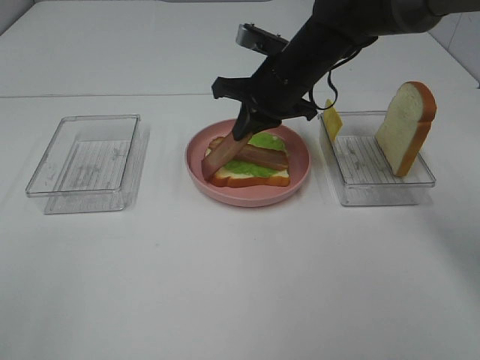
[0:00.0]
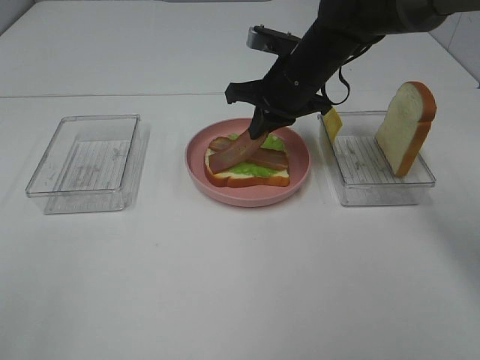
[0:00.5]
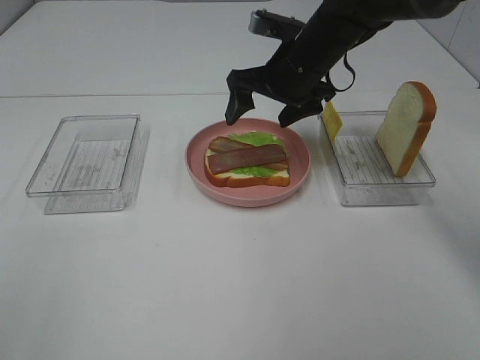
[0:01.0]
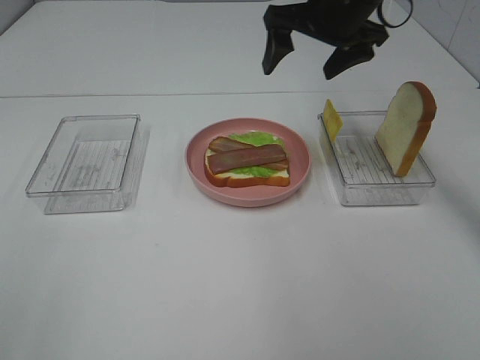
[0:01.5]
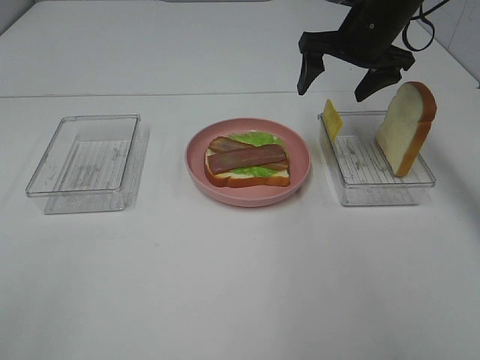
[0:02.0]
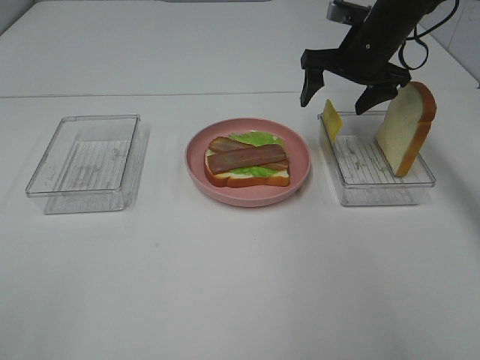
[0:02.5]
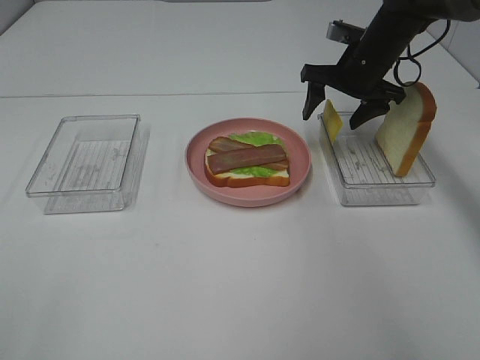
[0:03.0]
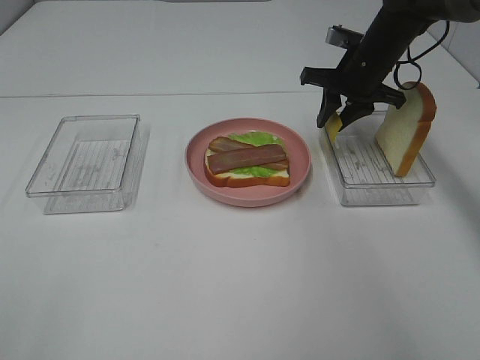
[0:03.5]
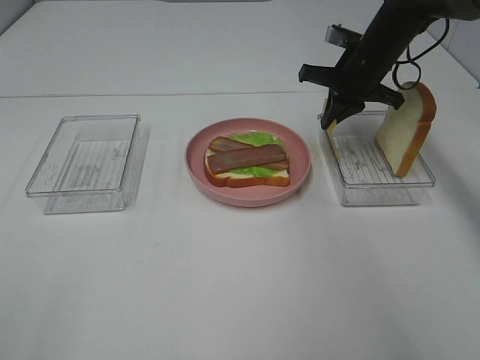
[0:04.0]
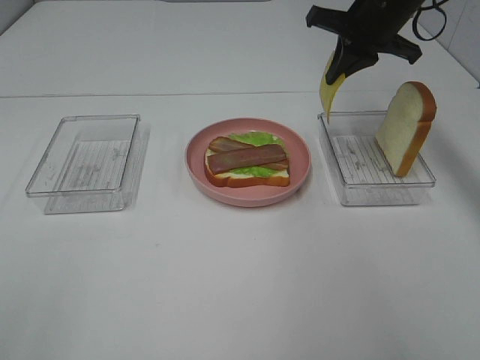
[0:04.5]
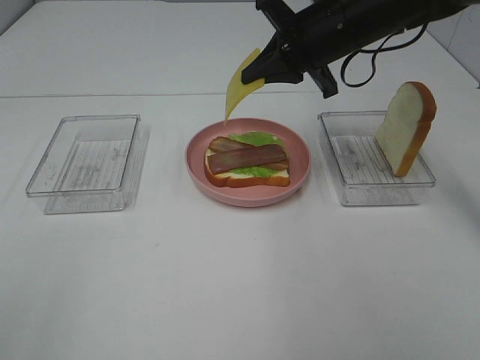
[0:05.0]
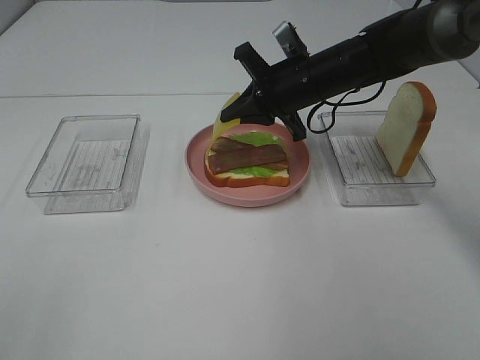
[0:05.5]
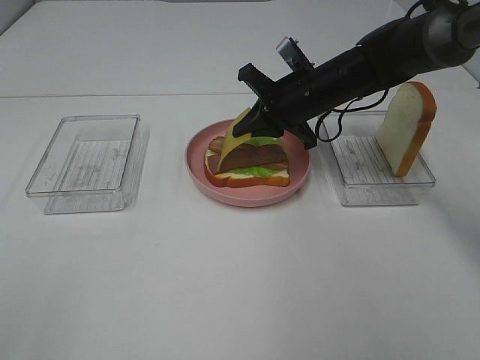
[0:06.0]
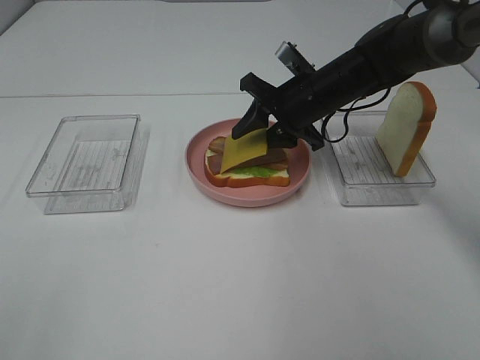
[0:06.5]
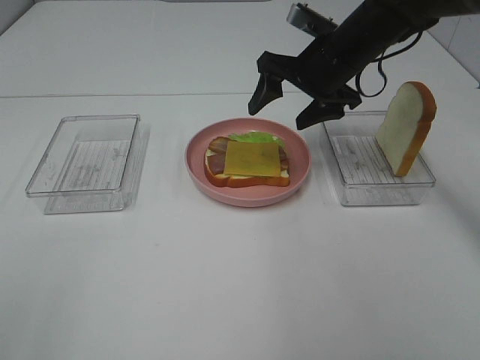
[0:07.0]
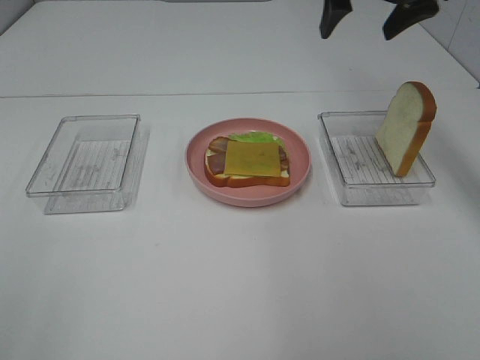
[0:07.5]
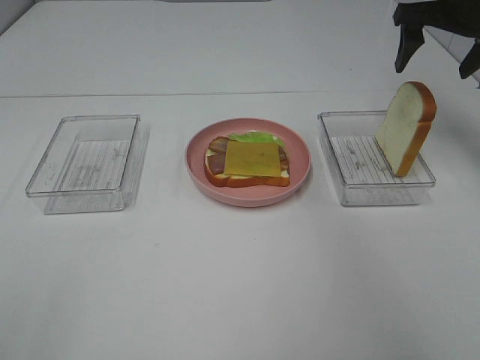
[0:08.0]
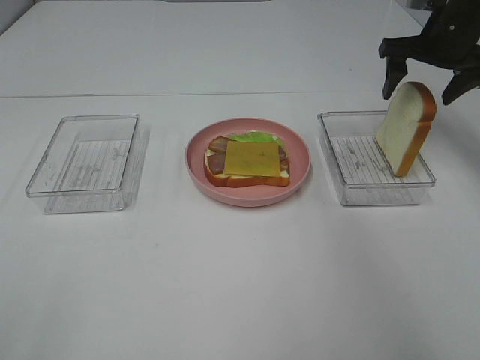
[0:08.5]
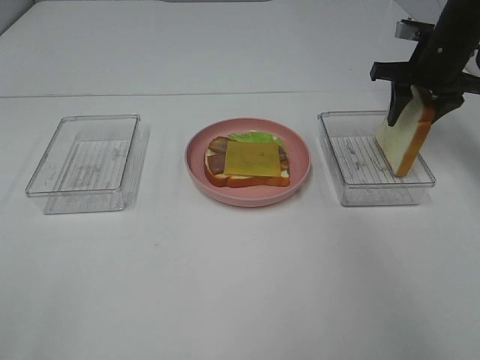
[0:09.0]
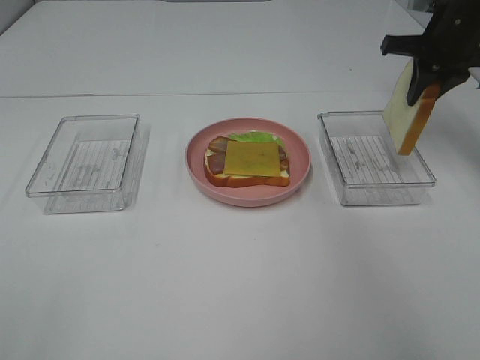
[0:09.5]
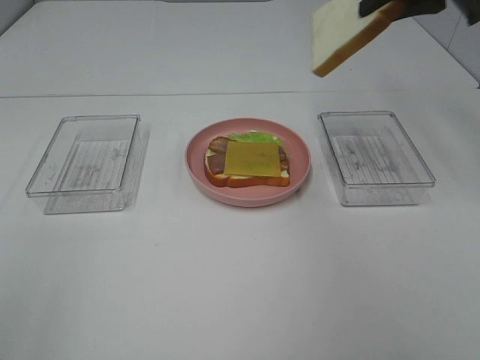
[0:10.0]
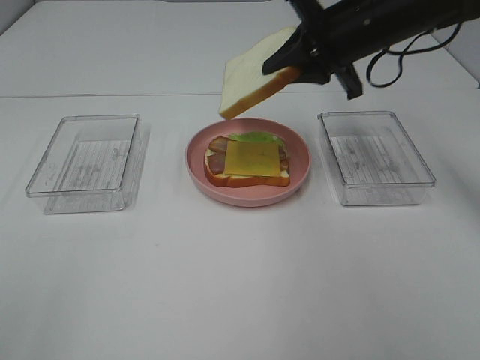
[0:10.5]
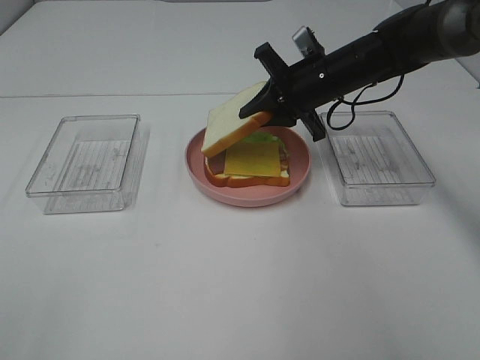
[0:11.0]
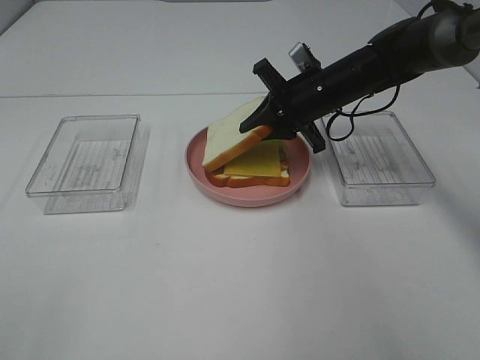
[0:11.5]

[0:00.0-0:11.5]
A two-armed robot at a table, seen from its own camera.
Task of the whole recording: Make sandwiches.
Step, 0:01.5 to 0:04.0: Right hand:grab the cheese slice.
Step, 0:04.5 to 0:06.5: Right hand:place the cheese slice on top of the bacon.
Step, 0:07.0 to 0:09.0: Right hand:grab the bread slice.
0:00.0 to 0:02.0: The right gripper is displaced to the right and upward by approximately 10 cm, and opens its fingers.
0:02.0 to 0:04.0: The right gripper goes some 5 cm downward, and closes.
0:04.0 to 0:06.0: The right gripper heads to the left and backward, covering approximately 10 cm, and reaches about 10 cm upward, then returns.
0:06.0 to 0:07.5: The right gripper heads upward and to the right, covering approximately 20 cm, and opens.
0:07.5 to 0:09.5: The right gripper heads to the right and downward, covering roughly 10 cm, and closes up.
0:09.5 to 0:11.5: The right gripper moves to the left and downward, approximately 20 cm.

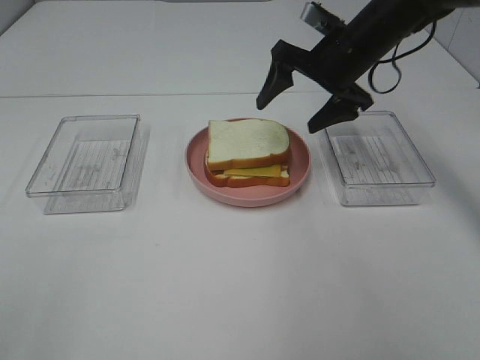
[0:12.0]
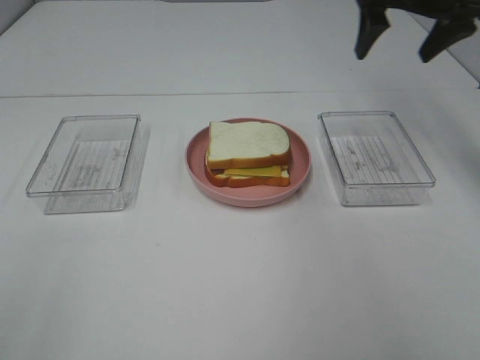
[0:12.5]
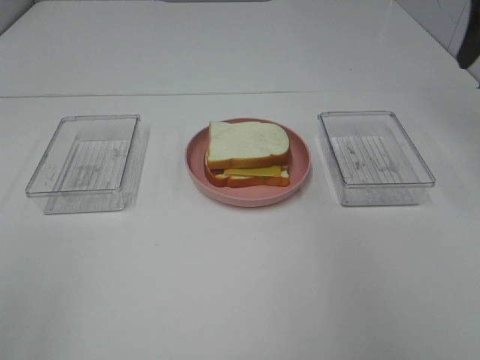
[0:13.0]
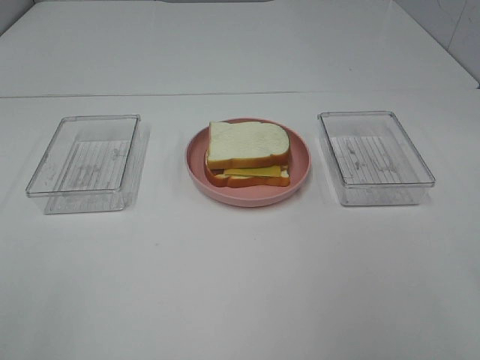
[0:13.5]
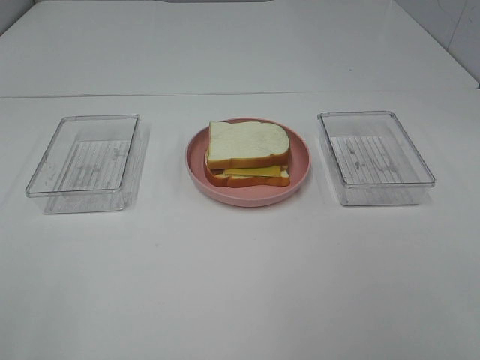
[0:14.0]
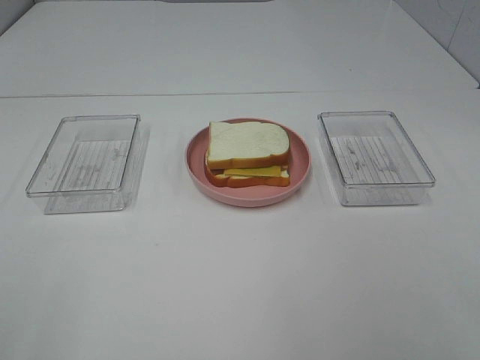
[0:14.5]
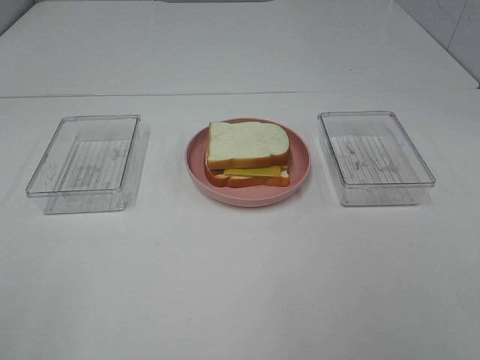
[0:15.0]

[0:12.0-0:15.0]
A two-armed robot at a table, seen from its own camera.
Task of the whole recording: Make sandwiches.
0:12.0 to 0:13.5: The right gripper moves backward, about 35 cm.

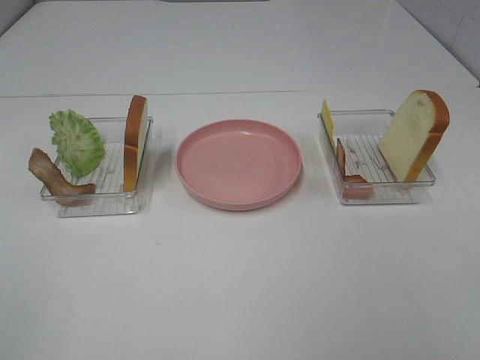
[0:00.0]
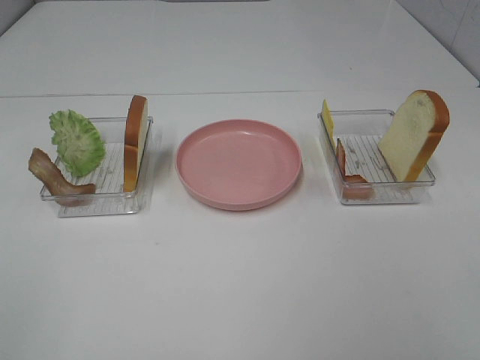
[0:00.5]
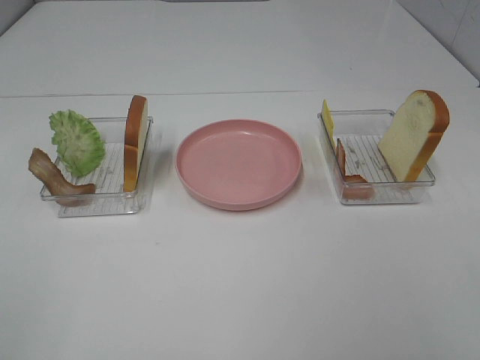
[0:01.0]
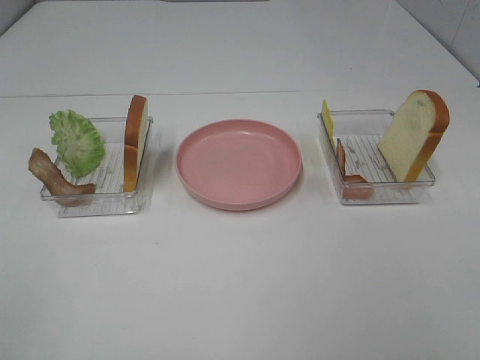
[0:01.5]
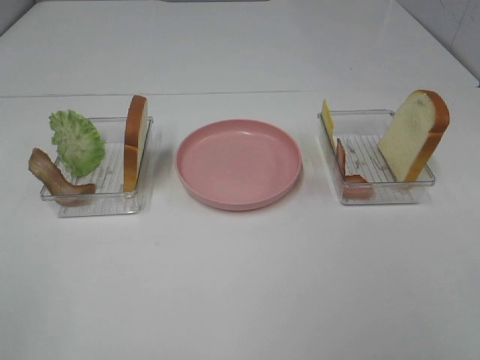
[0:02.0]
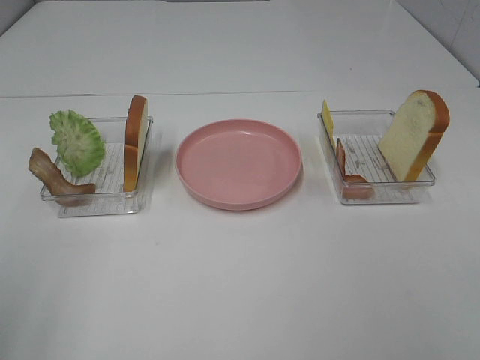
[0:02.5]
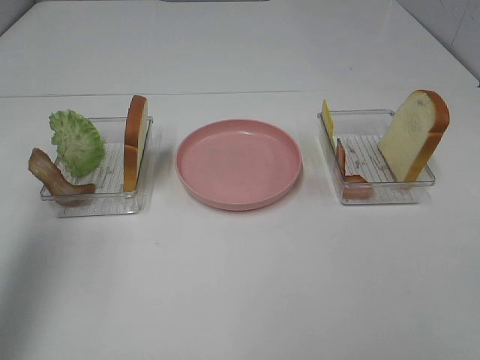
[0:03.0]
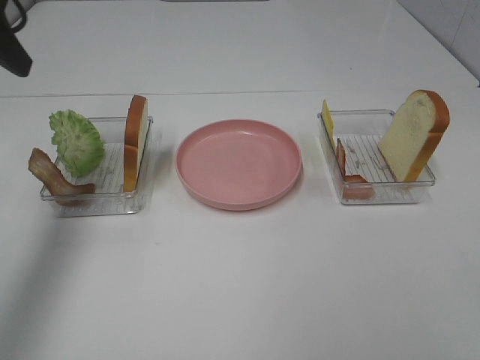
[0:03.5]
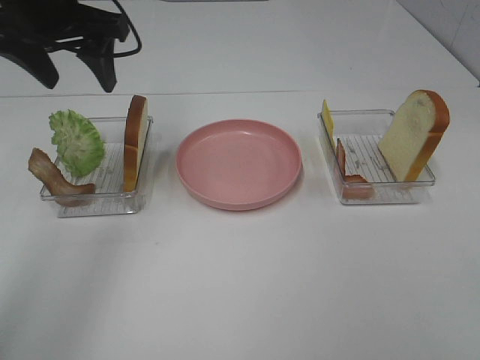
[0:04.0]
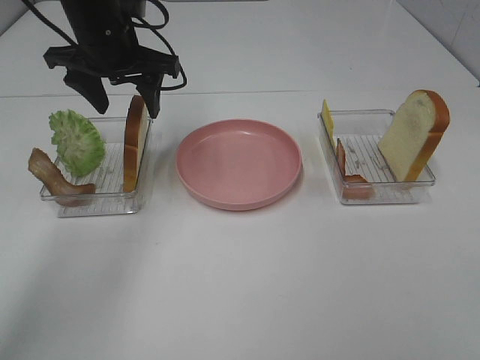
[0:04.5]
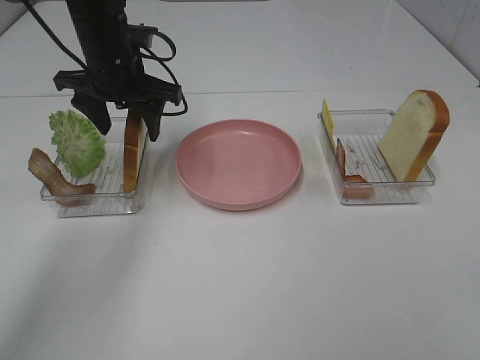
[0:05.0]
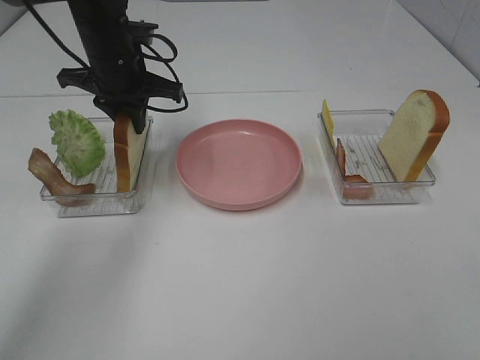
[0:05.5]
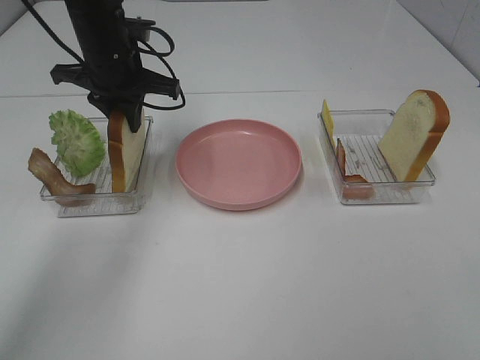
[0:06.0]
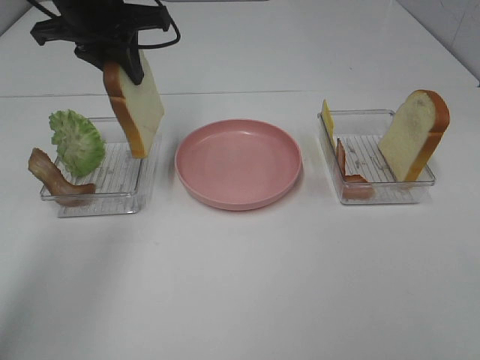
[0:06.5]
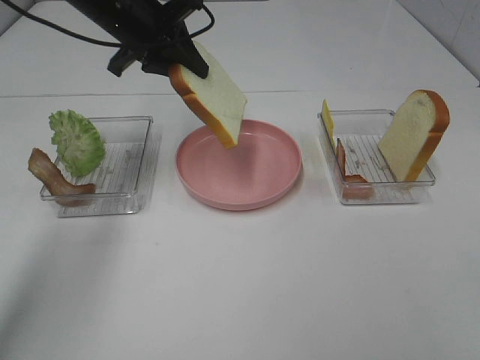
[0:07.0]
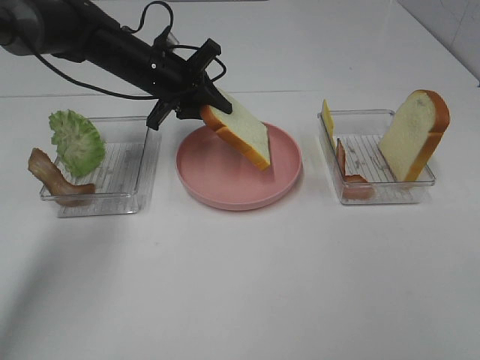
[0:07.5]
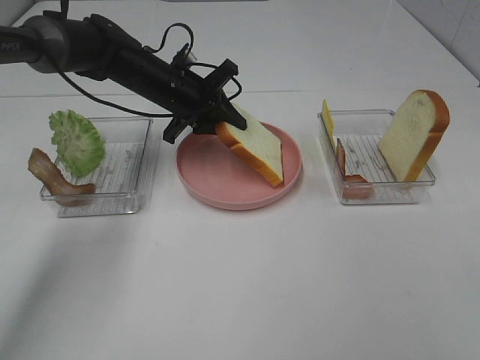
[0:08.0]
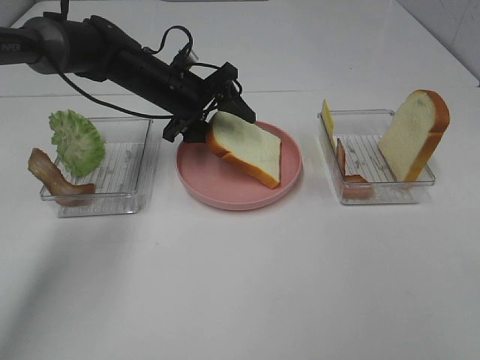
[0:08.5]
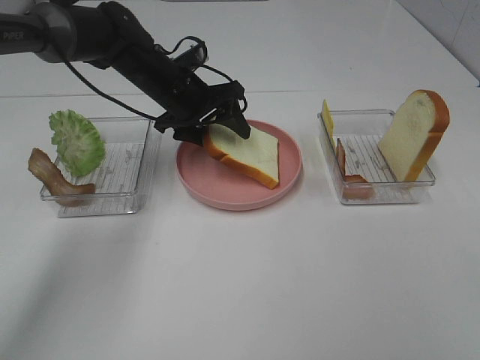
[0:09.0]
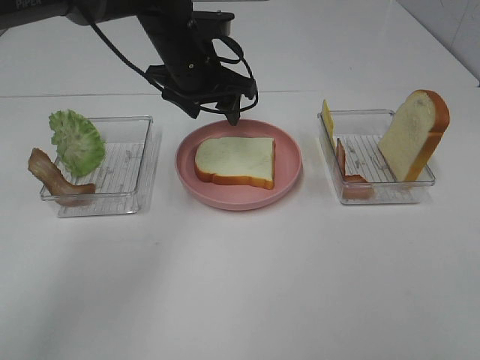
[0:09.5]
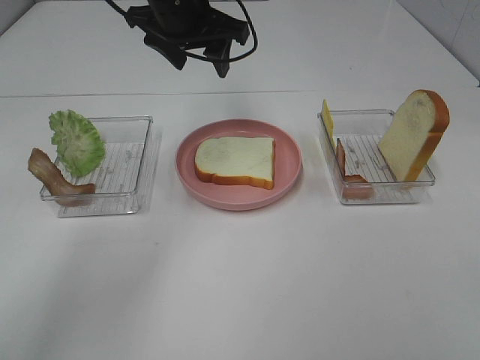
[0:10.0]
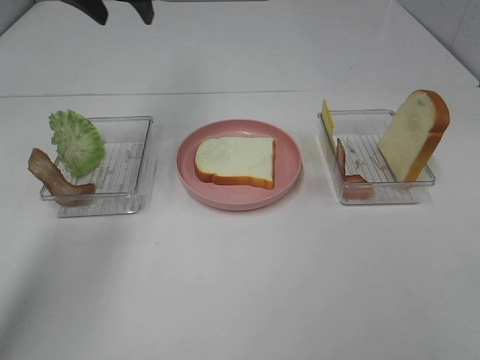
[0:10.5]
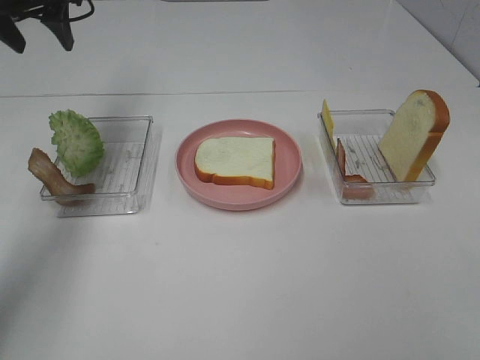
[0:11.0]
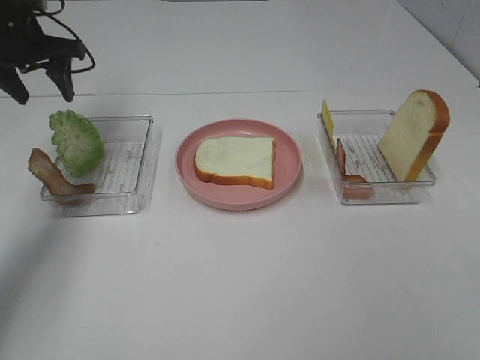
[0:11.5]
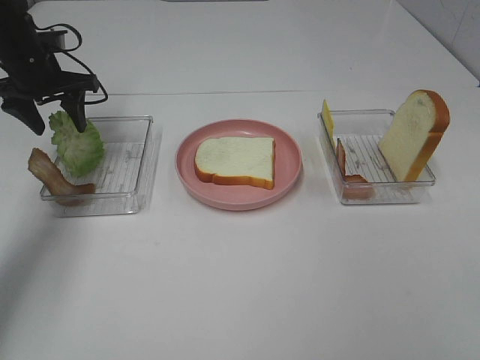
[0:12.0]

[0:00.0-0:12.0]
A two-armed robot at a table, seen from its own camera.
Task of the whole recording: Make sandwiches.
Step, 0:00.0 to 0:05.5: Left hand:grab the bread slice.
Step, 0:06.0 to 0:09.5: Left hand:place the bread slice on the plate.
0:00.0 to 0:02.0: Neither gripper changes place.
0:02.0 to 0:04.0: The left gripper travels forward by about 40 cm.
0:04.0 to 0:06.0: The left gripper heads downward and forward, covering approximately 10 cm, and closes.
0:06.0 to 0:08.0: The left gripper is displaced downward by approximately 10 cm.
0:08.0 to 0:10.0: The left gripper travels upward by approximately 15 cm, and opens its fingers.
0:10.0 to 0:12.0: The left gripper moves to the left and downward, roughly 25 cm.
